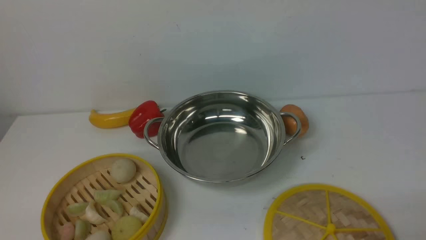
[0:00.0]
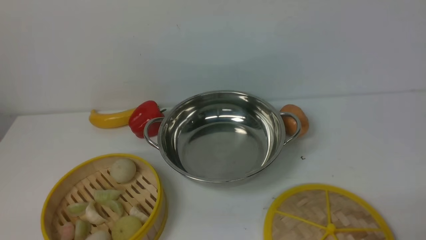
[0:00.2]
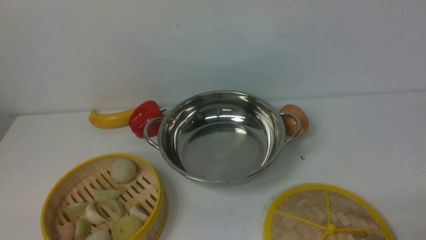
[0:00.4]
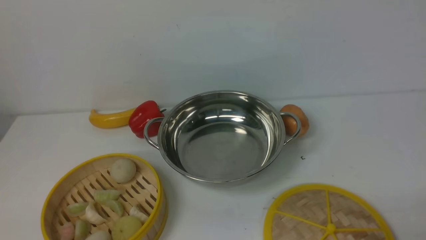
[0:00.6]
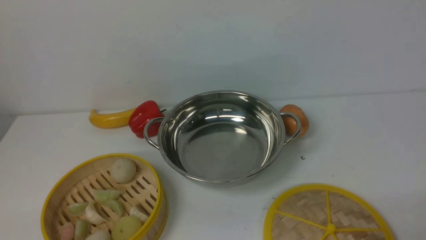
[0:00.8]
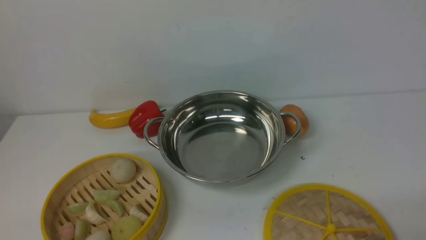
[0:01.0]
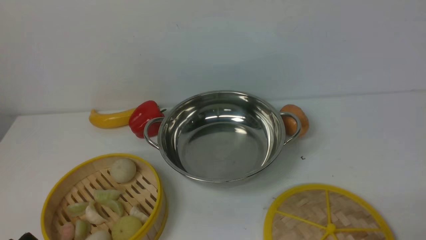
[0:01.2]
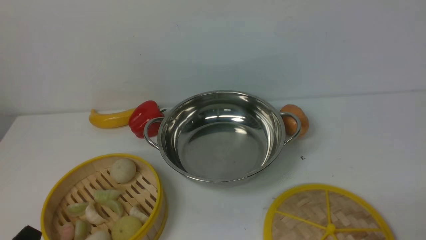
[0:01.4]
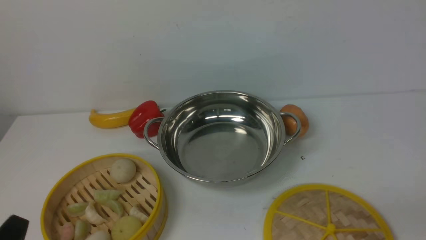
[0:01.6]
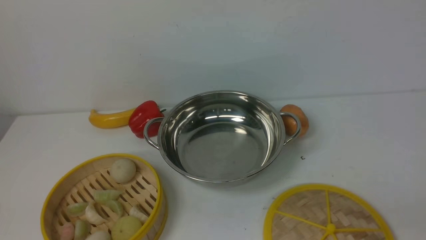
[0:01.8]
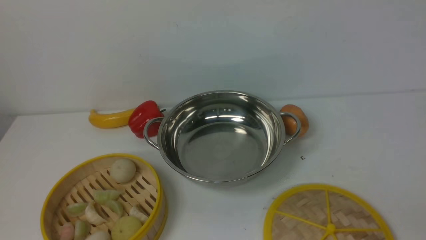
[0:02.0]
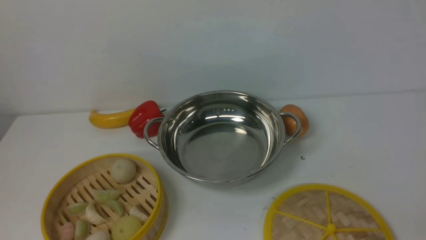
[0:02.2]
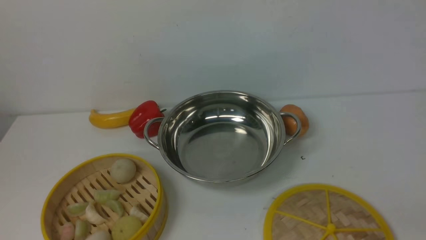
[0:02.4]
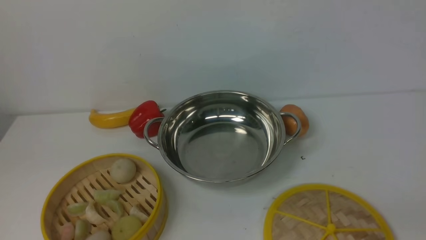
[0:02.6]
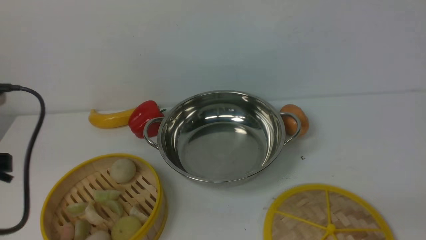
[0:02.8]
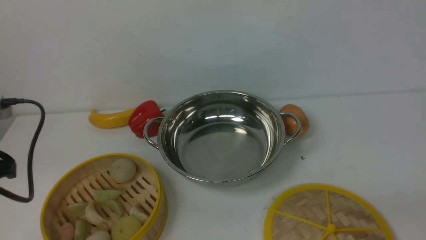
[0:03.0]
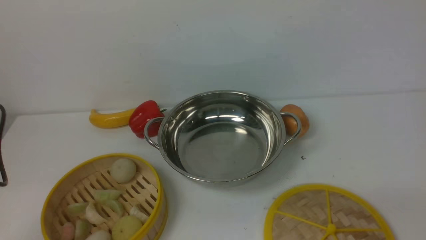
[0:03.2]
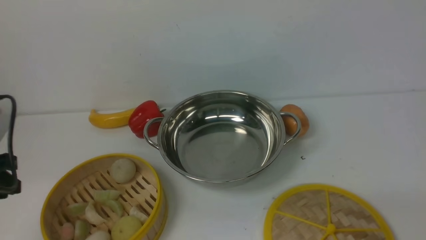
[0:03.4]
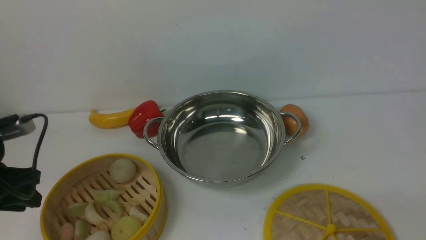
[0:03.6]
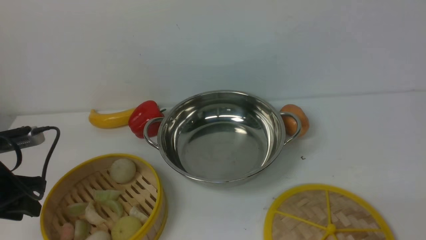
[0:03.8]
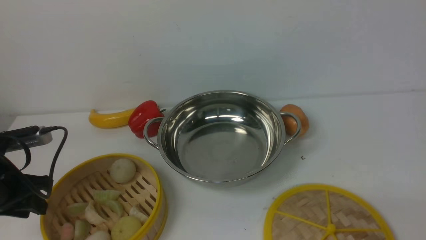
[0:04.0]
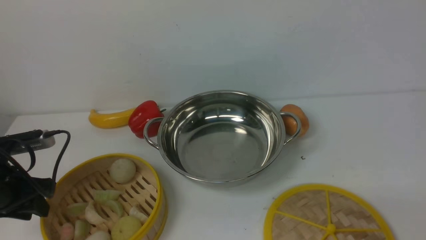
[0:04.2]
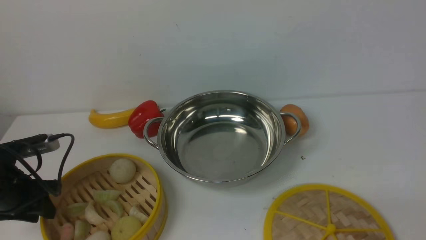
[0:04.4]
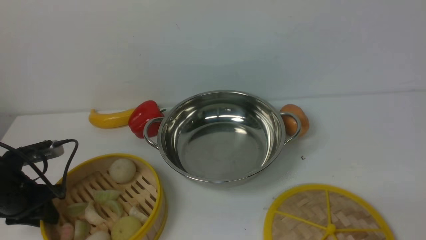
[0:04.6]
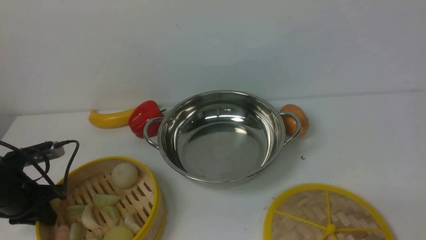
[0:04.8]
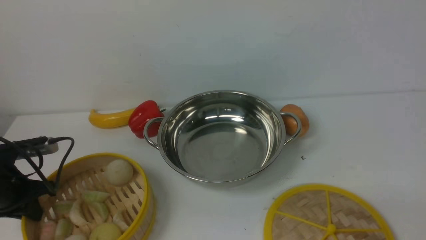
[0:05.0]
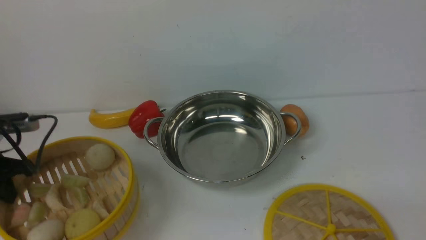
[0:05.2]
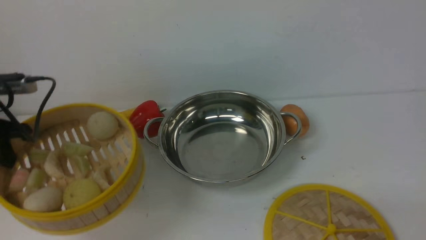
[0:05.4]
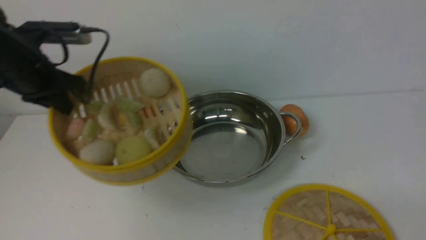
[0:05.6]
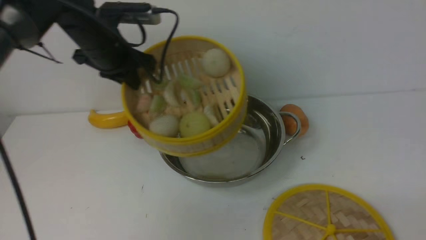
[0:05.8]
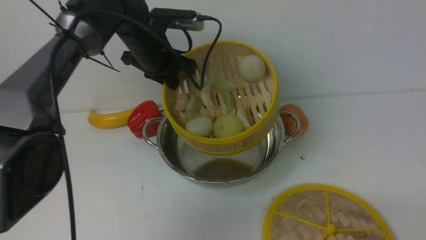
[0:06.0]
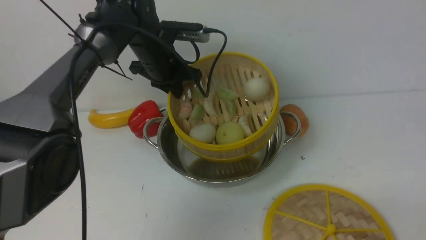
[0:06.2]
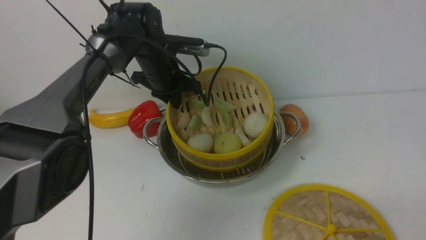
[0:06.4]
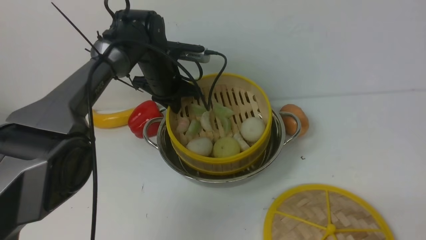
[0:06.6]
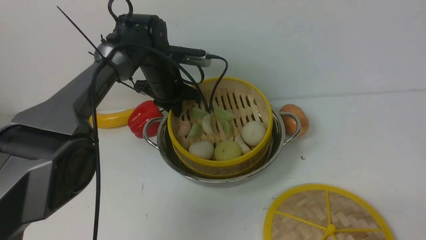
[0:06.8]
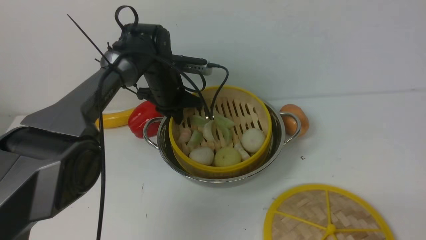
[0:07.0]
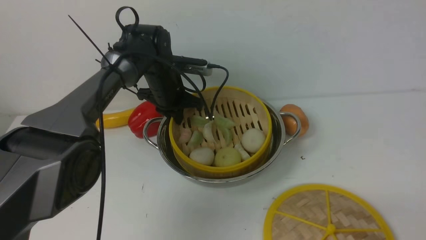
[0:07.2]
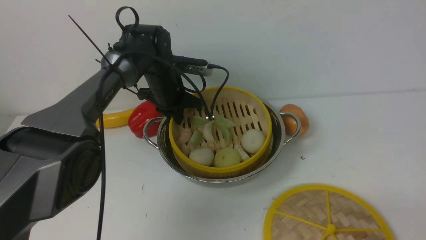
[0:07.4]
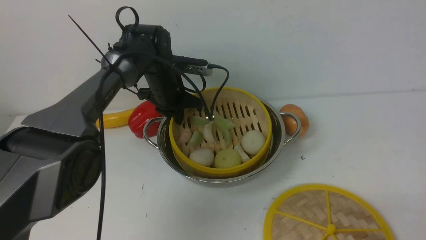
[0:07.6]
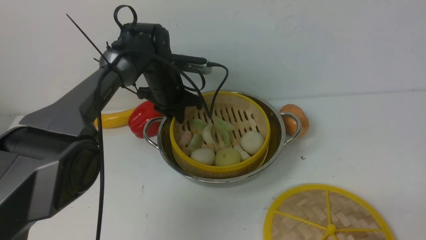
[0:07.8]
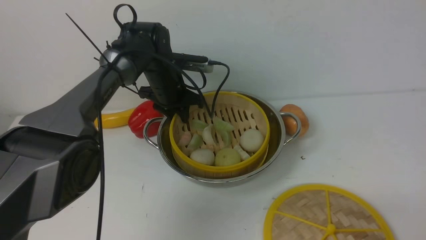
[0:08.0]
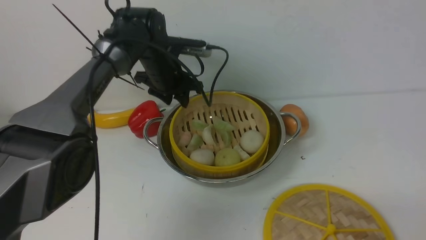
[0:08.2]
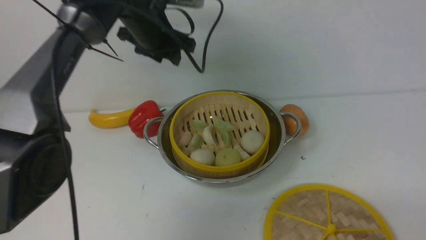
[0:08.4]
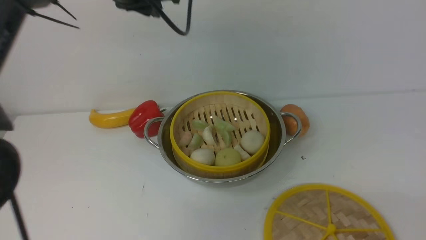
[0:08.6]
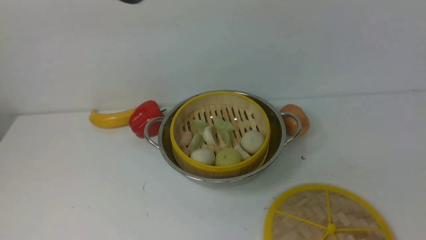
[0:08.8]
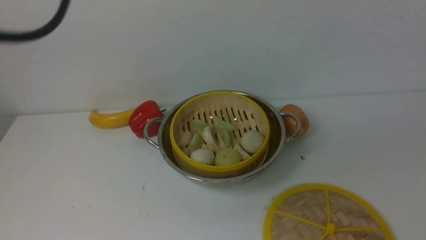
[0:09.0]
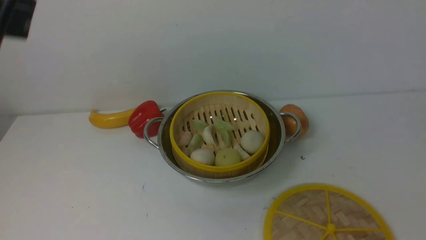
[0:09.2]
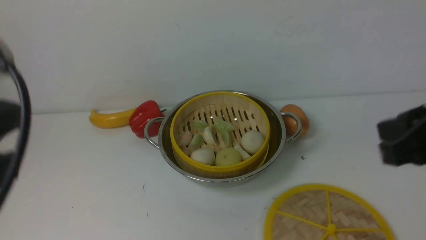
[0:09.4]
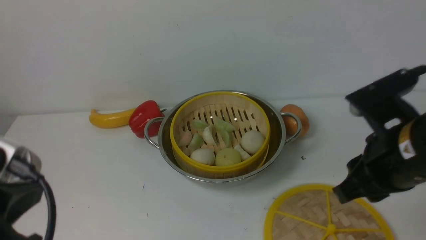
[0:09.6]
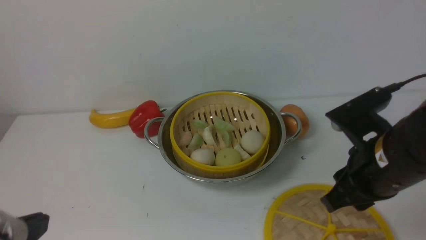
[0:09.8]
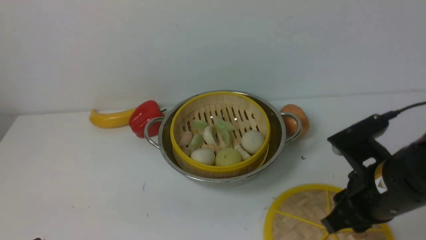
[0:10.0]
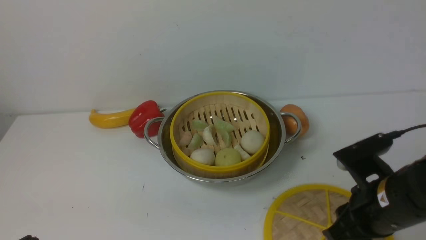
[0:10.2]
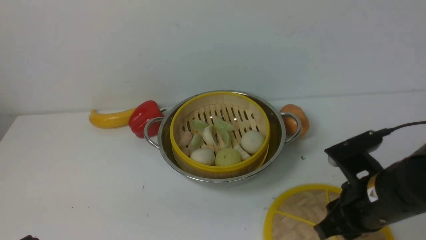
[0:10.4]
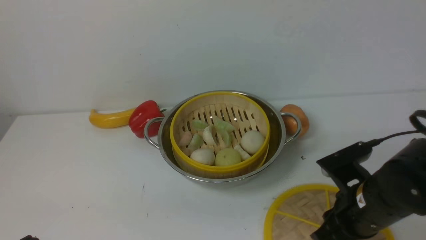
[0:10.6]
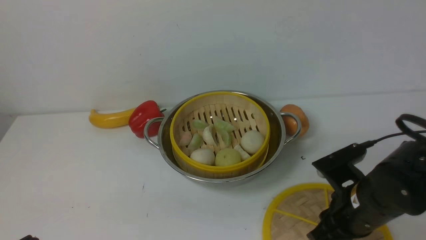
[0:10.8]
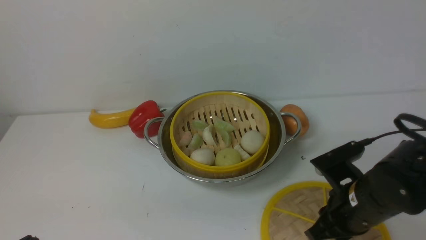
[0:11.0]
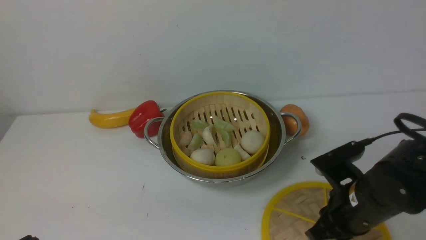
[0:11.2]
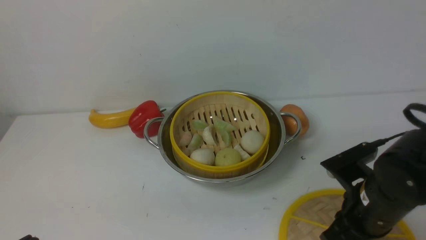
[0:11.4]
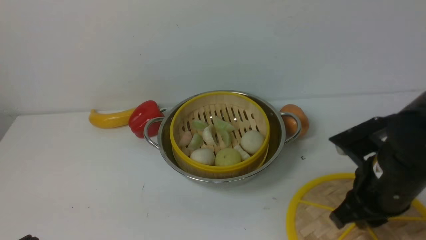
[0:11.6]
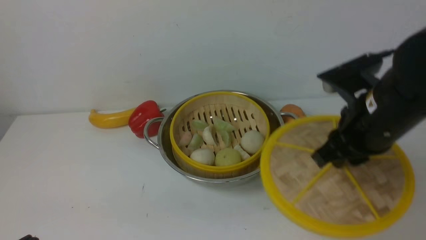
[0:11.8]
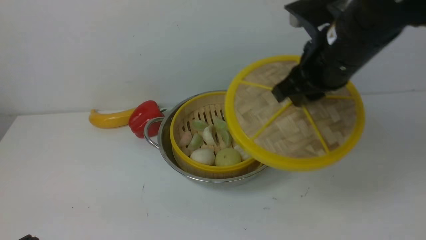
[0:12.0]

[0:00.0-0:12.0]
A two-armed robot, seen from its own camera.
Task of the whole recording: place the steamer in the pot on the white table, and put the lid on the steamer.
Step, 0:00.0 to 0:05.2: use the left arm to lift the steamer closest to it.
Step, 0:05.4 to 0:08.6: use the left arm to put the steamer into the iron steamer pot in the middle.
Step, 0:08.8 to 0:11.8: use the right arm to lift the lid of the steamer.
0:01.6 to 0:03.0: The left gripper goes some 20 cm forward, upward and to the left.
0:03.0 to 0:04.4: The left gripper heads downward and forward, covering about 15 cm.
0:04.4 to 0:06.0: The left gripper is displaced to the right, forward and upward by about 30 cm, and closes.
0:06.0 to 0:07.6: The left gripper travels downward by approximately 10 cm.
0:07.6 to 0:09.0: The left gripper heads upward and backward, covering some 40 cm, and closes its fingers. Meanwhile the right gripper shifts some 15 cm upward.
0:09.0 to 0:10.4: The left gripper travels downward and backward by roughly 35 cm, while the right gripper travels downward, forward and to the left by about 25 cm.
0:10.4 to 0:12.0: The right gripper shifts about 20 cm upward, forward and to the left.

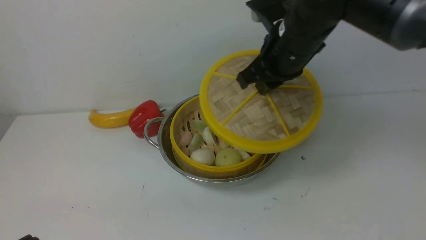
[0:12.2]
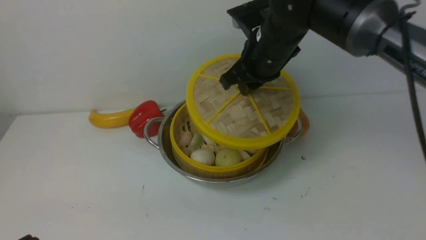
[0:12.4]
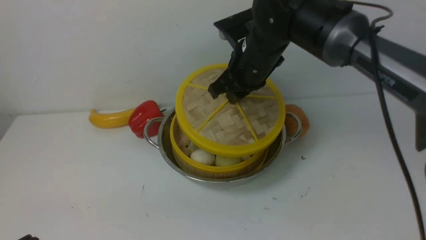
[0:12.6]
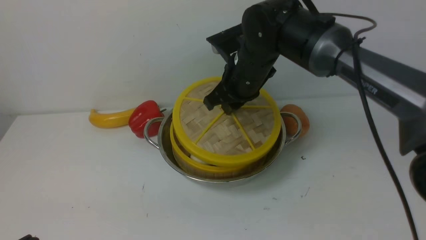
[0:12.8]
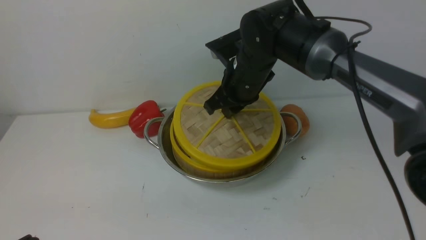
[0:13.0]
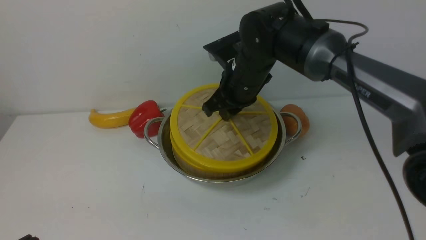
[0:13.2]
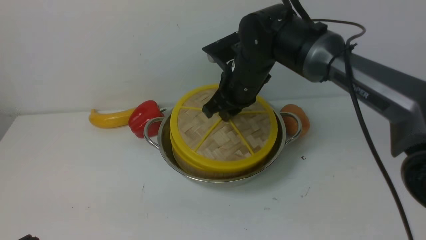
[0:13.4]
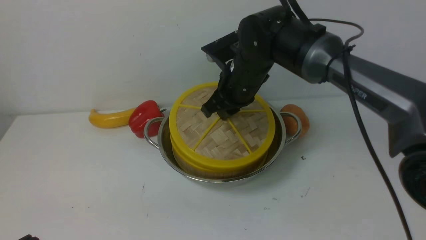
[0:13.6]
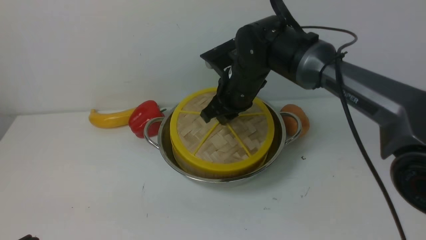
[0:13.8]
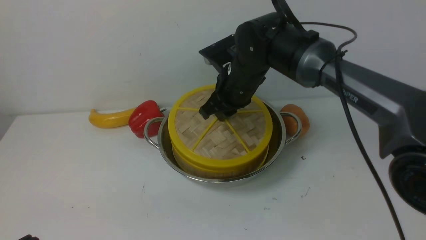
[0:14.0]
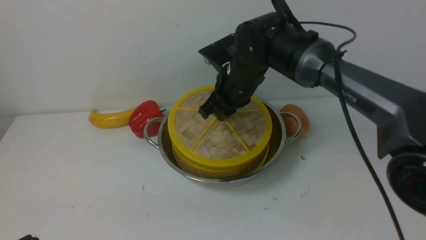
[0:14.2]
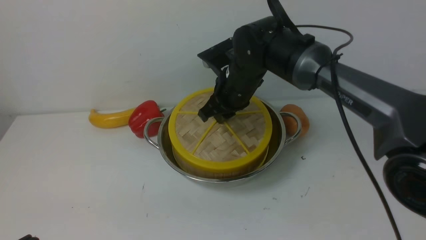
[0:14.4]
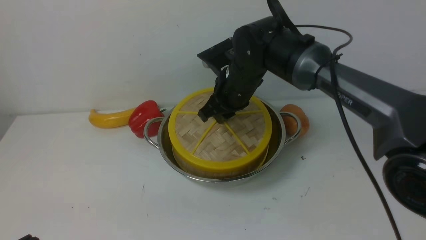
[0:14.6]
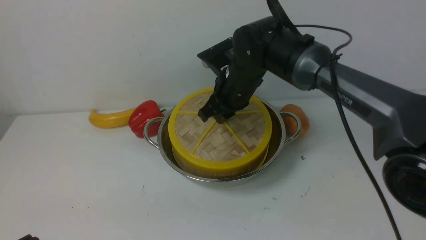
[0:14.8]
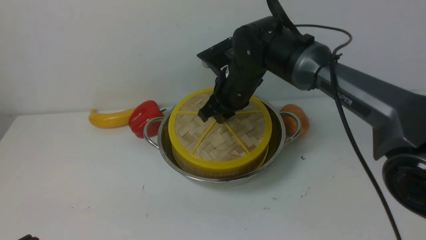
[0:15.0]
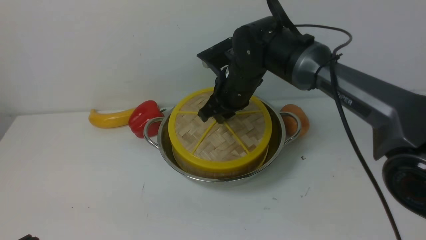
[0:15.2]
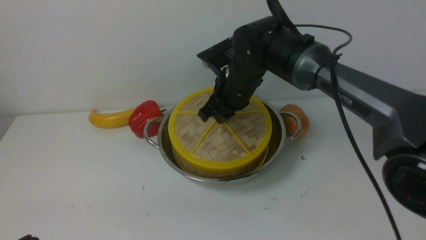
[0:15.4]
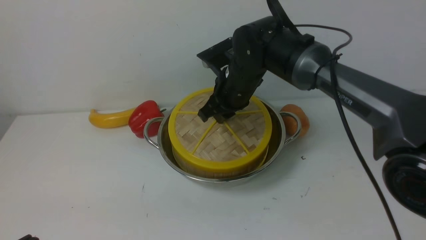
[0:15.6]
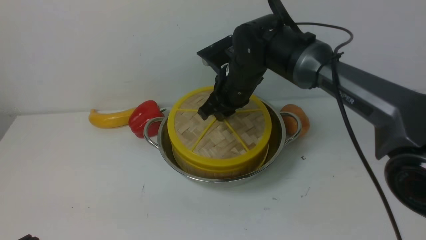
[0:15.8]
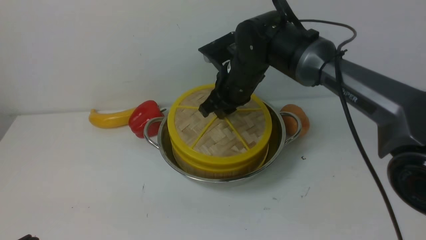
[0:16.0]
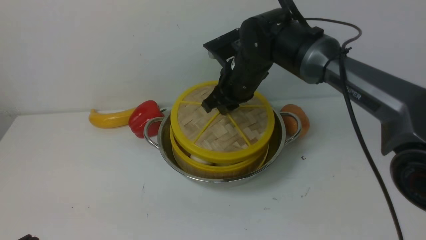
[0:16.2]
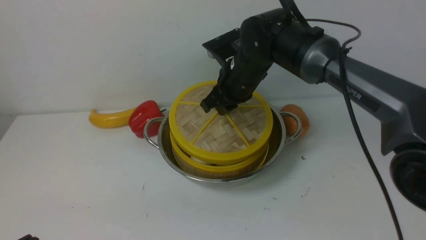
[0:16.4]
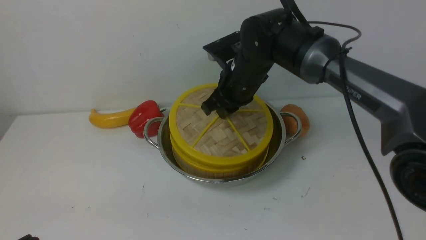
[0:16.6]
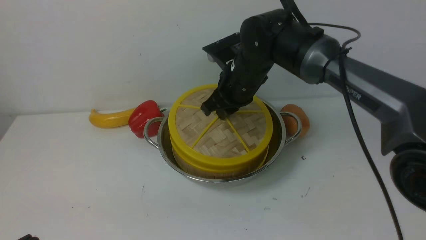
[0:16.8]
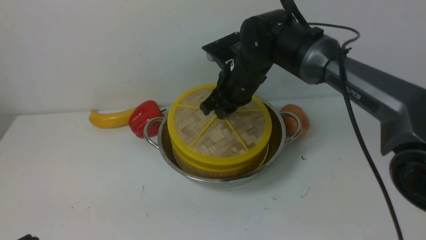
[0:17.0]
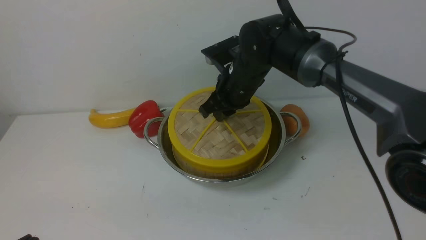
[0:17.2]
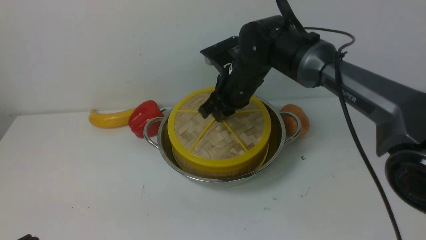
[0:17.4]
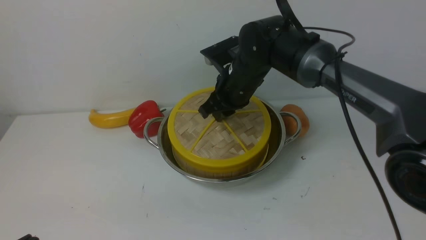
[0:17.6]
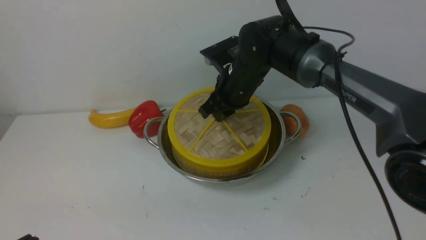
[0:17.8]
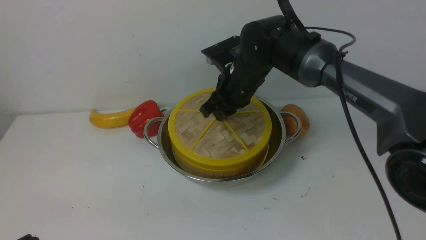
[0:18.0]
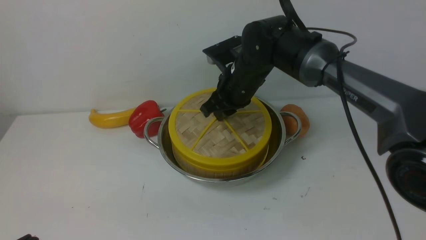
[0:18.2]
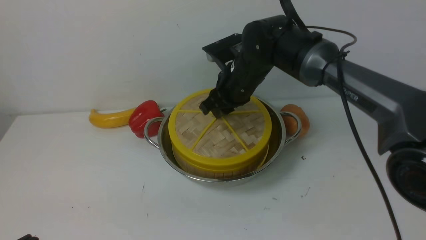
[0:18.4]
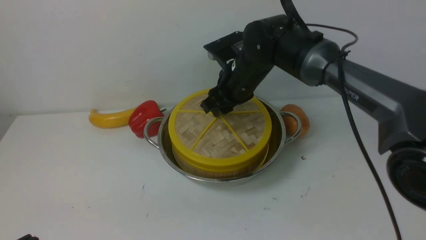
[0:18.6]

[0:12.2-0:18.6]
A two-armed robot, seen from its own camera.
Task of the whole recording: place the steamer in the pot on the white table, and put the lid on the steamer.
0:12.2 to 0:13.8: The right gripper is displaced downward and to the left by approximately 10 cm.
0:13.8 to 0:17.0: Both grippers stay put.
0:17.0 to 0:18.6: The right gripper opens its fingers.
